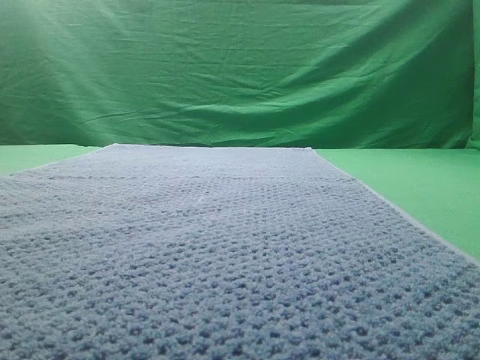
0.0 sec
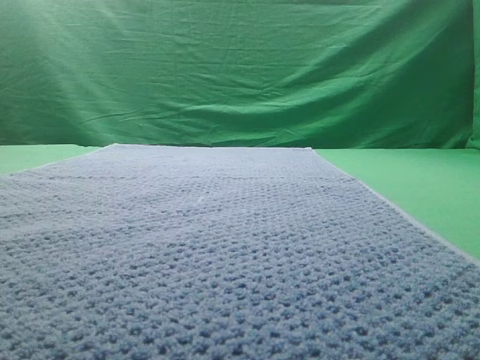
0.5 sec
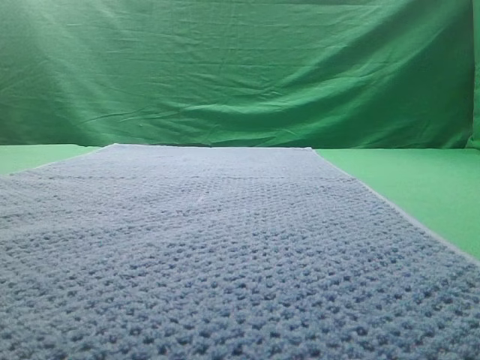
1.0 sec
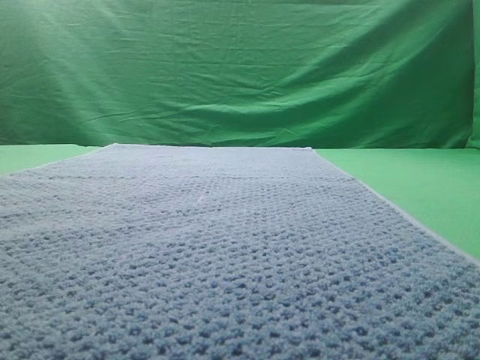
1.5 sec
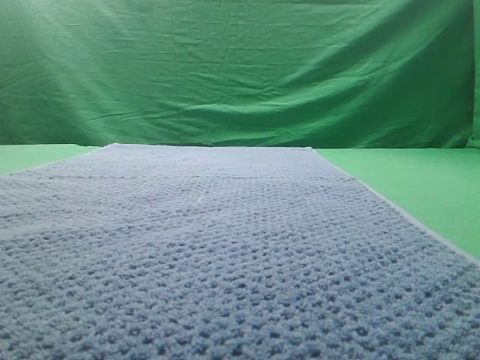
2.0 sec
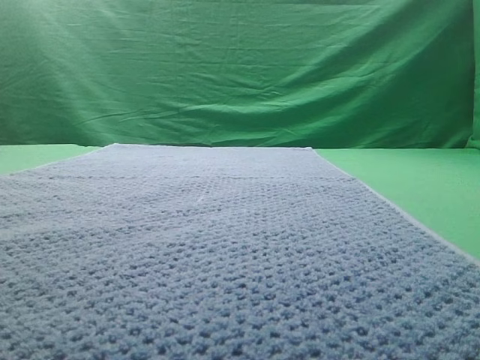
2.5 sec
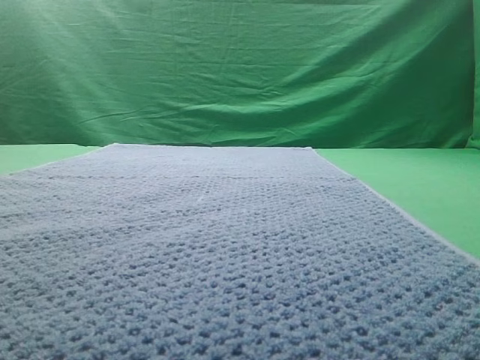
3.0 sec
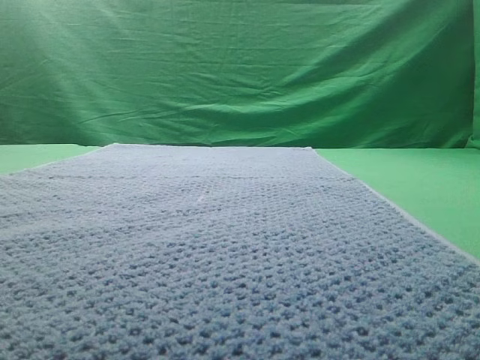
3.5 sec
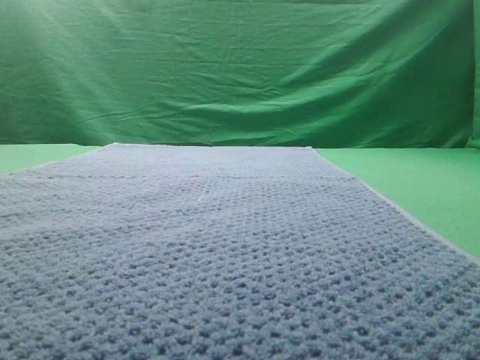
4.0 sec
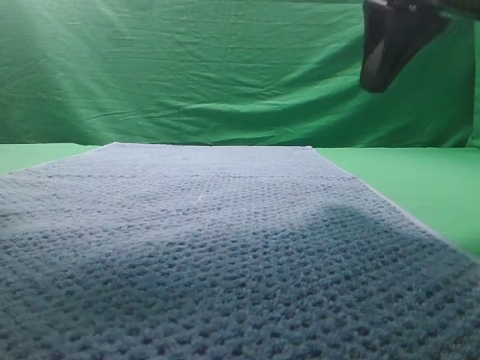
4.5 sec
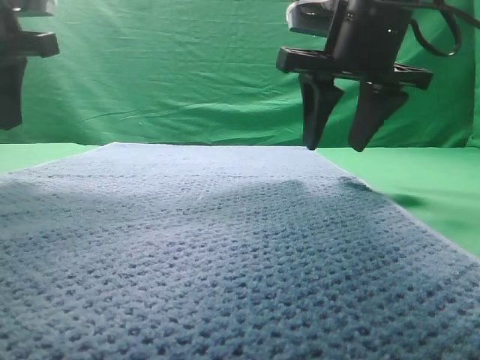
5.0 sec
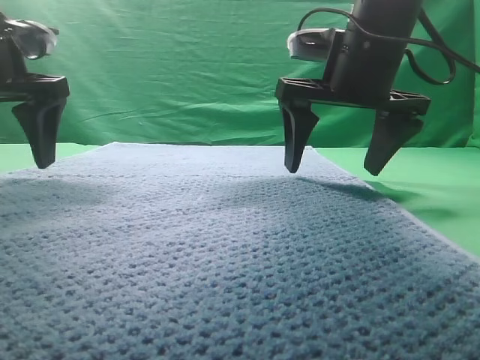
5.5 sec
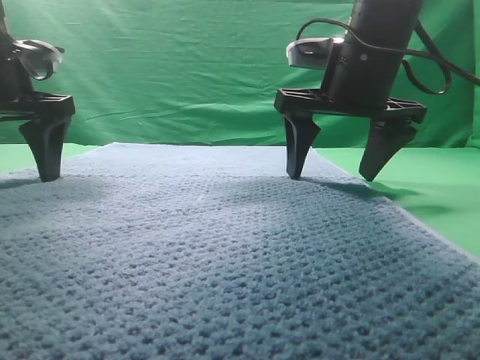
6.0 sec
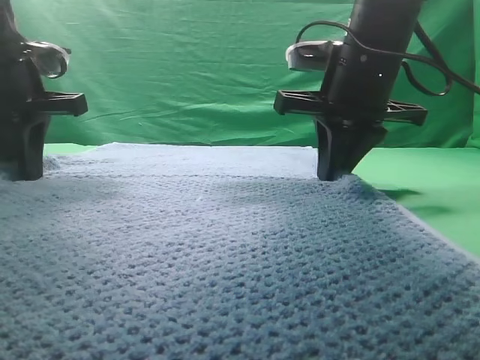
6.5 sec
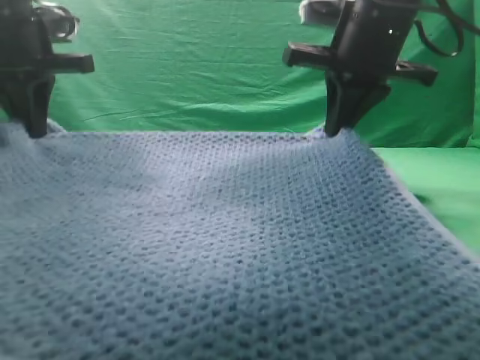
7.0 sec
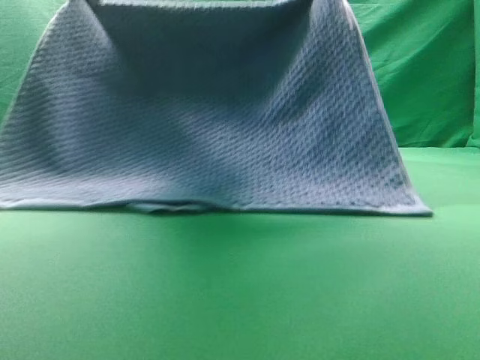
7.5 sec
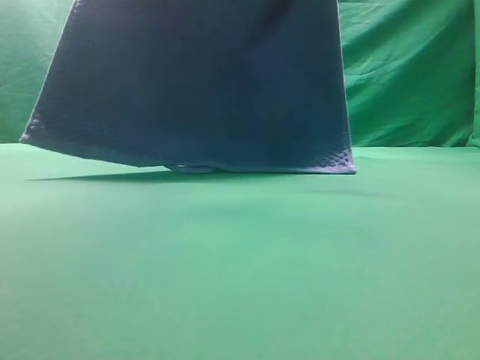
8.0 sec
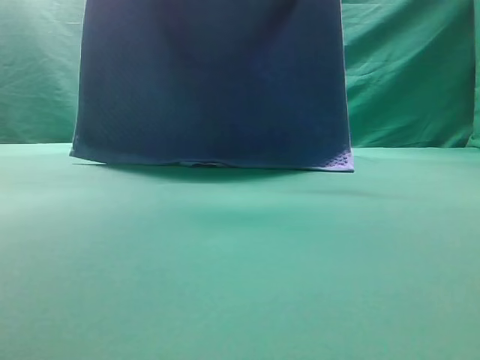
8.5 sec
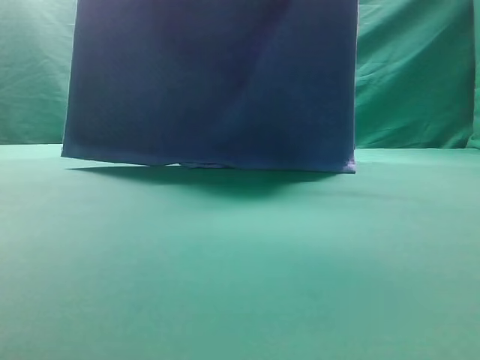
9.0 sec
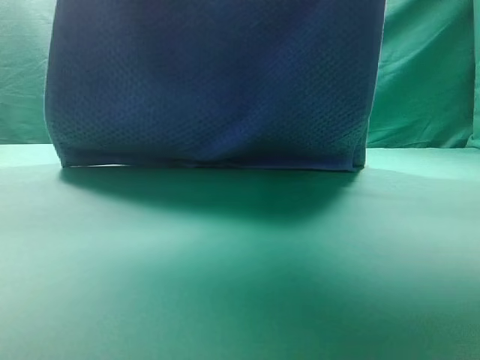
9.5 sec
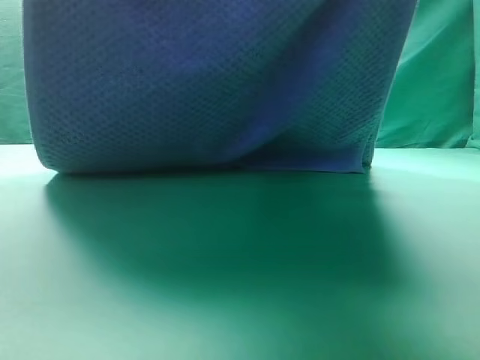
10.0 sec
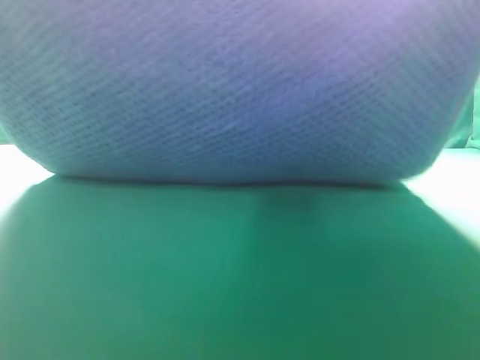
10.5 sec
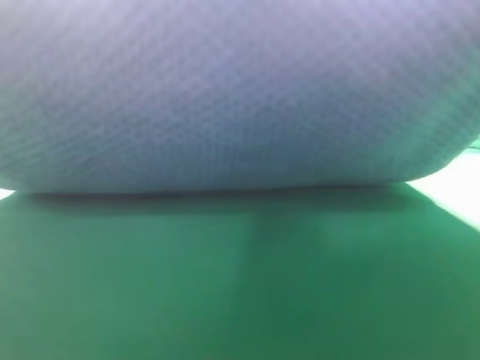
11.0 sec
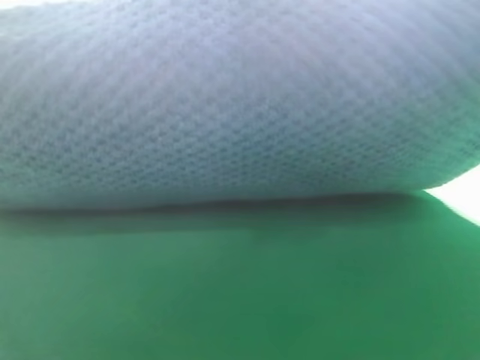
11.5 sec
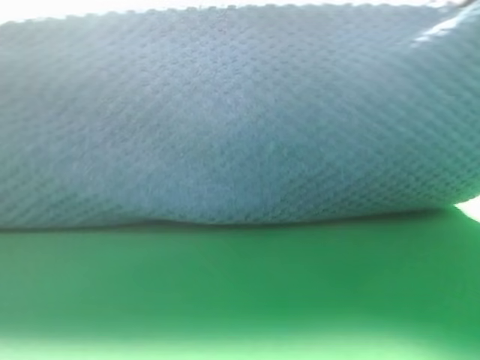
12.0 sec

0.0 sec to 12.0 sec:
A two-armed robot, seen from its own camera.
Task of the whole recording: fold the towel on the table twice.
Step, 0.0 sec to 8.0 sec: pick up the towel with two arm.
